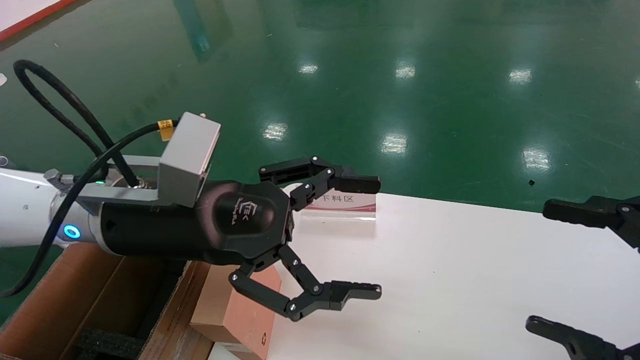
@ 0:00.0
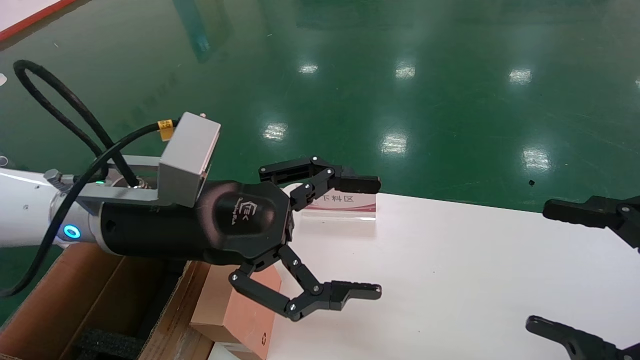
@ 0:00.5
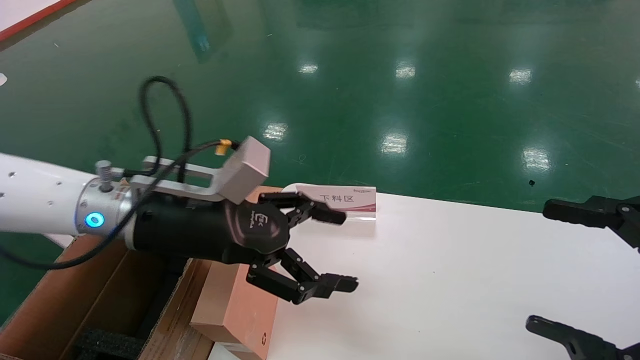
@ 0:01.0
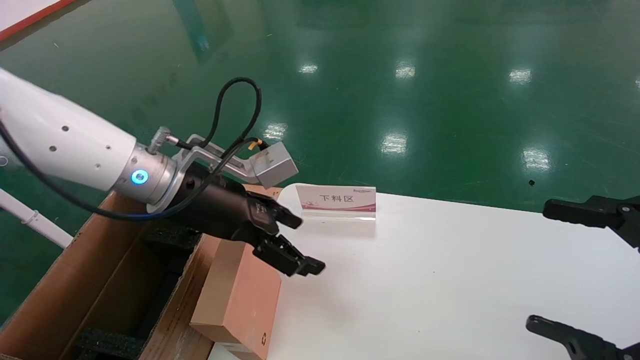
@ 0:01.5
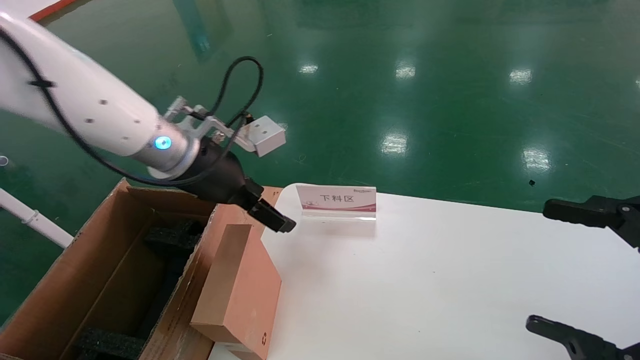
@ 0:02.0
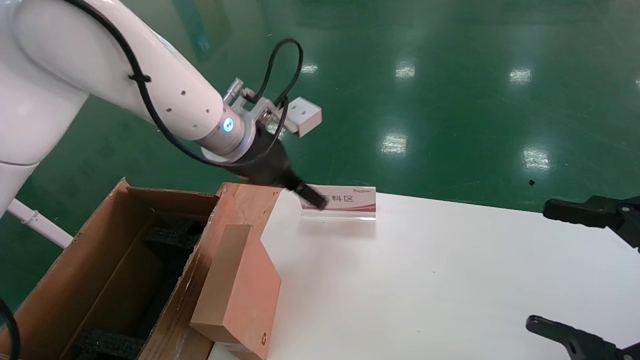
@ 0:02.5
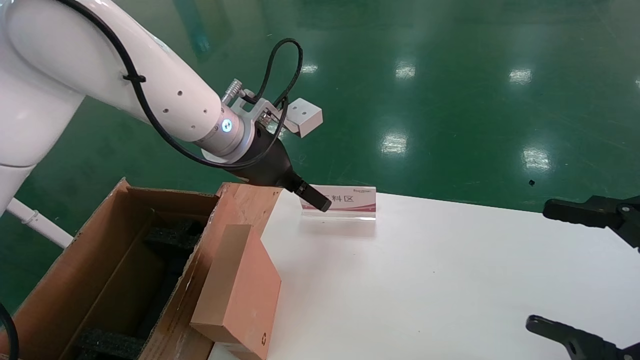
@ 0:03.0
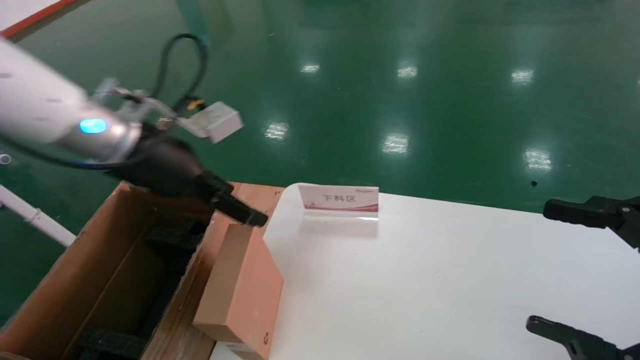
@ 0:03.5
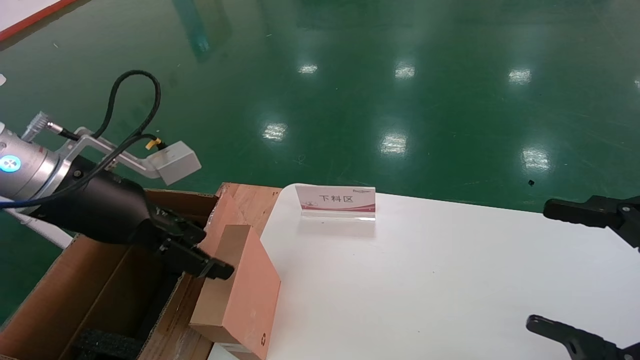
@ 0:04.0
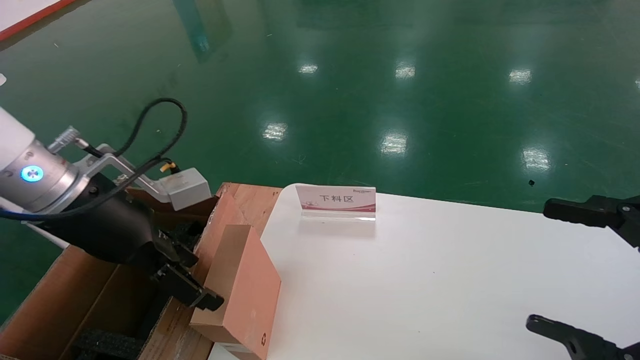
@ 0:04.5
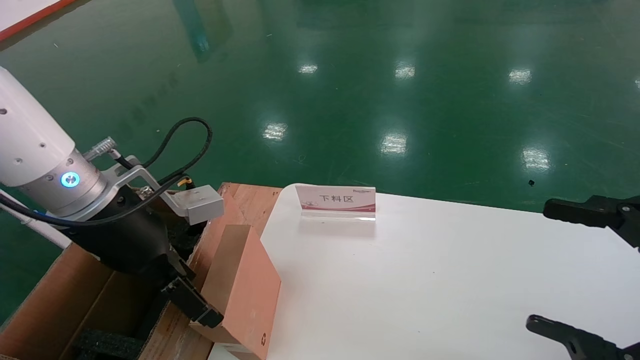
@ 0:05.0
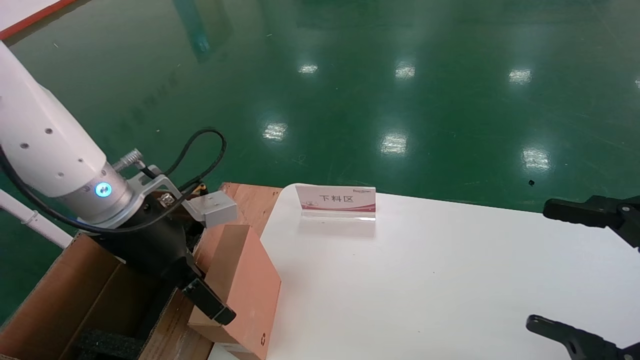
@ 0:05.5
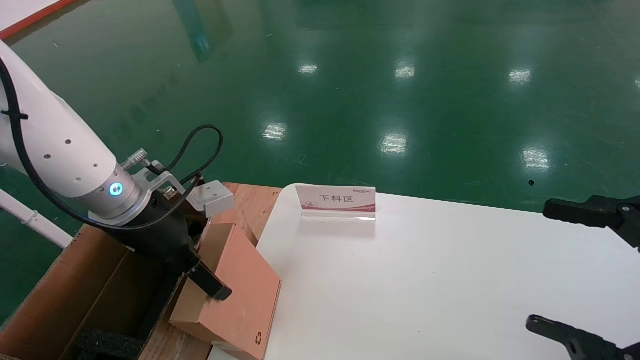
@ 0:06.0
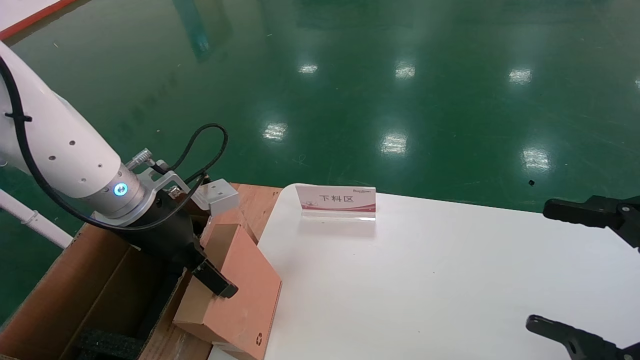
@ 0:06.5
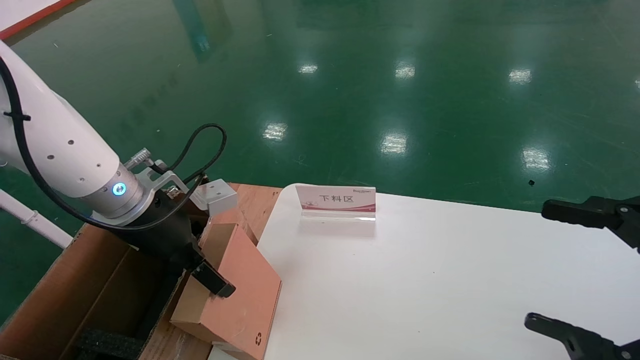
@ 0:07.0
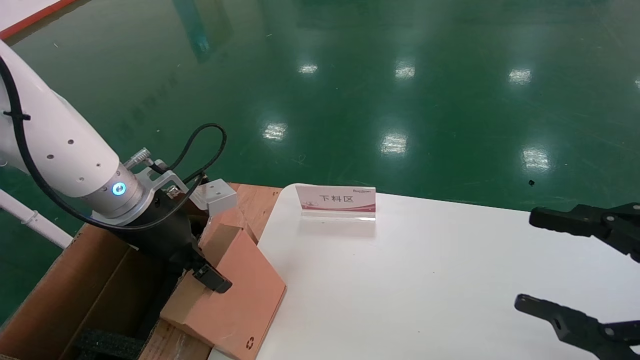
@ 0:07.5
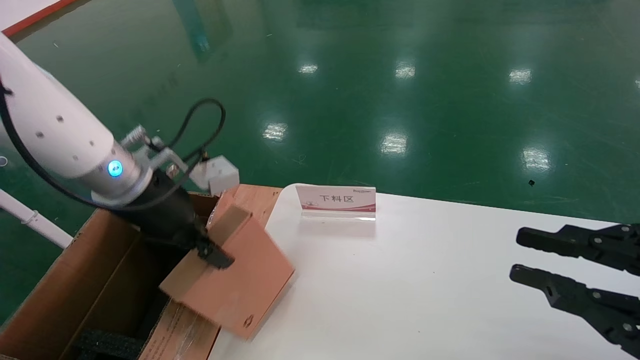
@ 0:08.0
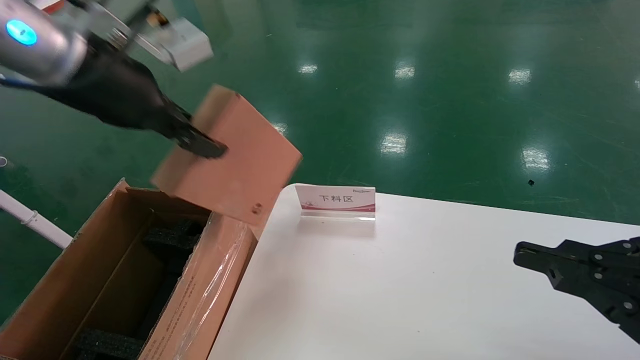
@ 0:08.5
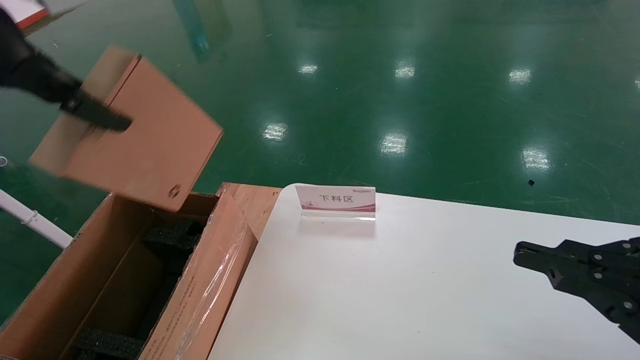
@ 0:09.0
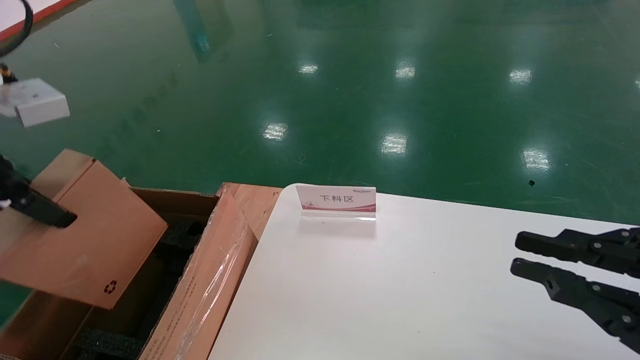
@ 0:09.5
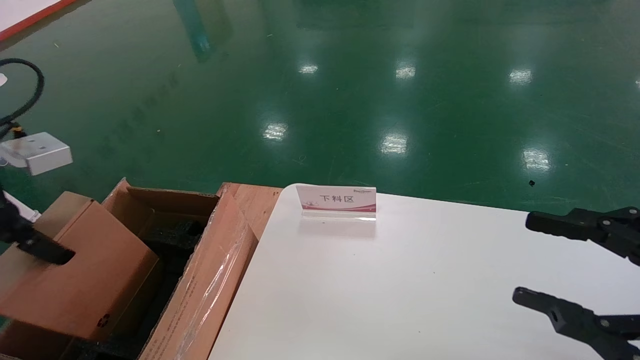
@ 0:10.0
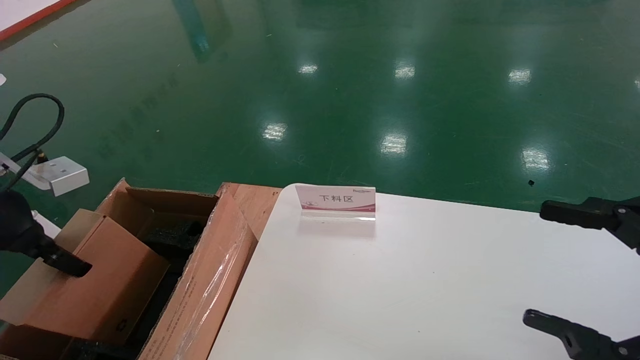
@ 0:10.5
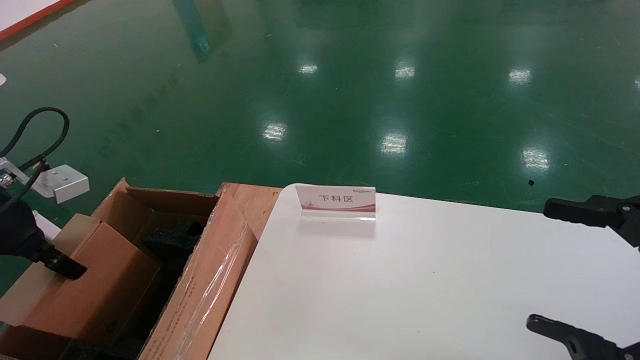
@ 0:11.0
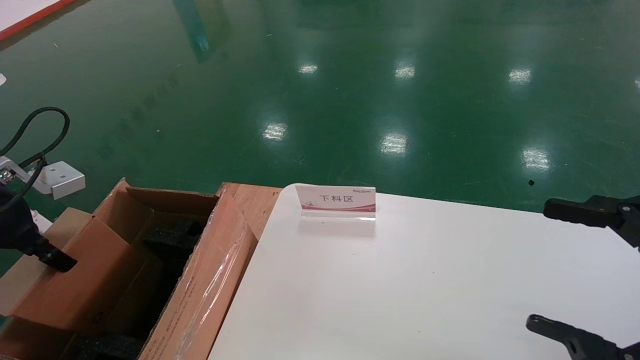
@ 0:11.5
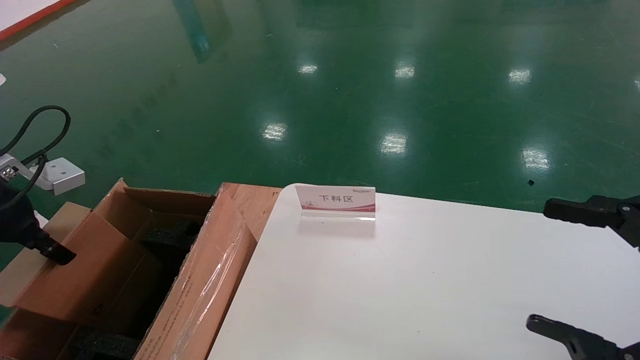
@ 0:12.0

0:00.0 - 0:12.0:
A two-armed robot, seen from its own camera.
Task of the whole recording: pick up the small cardboard box and load it into the large cardboard box.
Step, 0:01.5 - 0:08.0: Pick up the mouse and power cord box.
0:00.0 - 0:02.0: The left gripper goes approximately 10 cm forward.
0:02.0 - 0:04.0: The left gripper is displaced backward and to the left by roughly 15 cm.
0:04.0 - 0:06.0: The left gripper heads forward, covering about 5 cm.
0:06.0 - 0:08.0: The left gripper closes, while the right gripper closes its fingers.
0:08.0 - 0:10.0: The left gripper is displaced to the left and backward by about 15 cm, and travels upward and back again, some 15 cm each way.
0:10.0 - 0:12.0: The right gripper opens. The left gripper moves downward and to the left, approximately 10 cm.

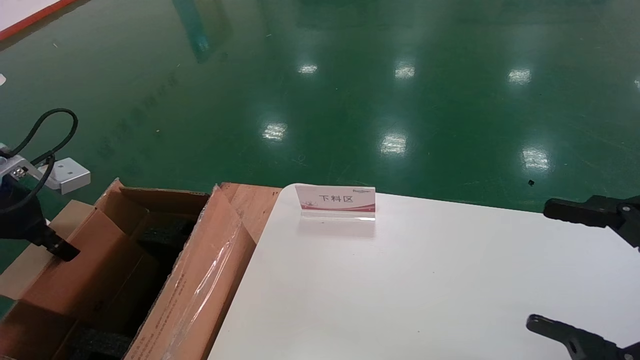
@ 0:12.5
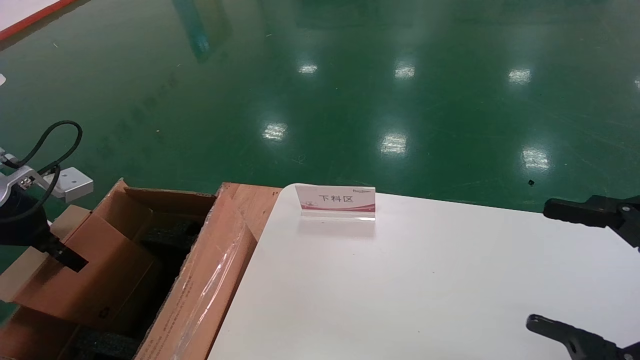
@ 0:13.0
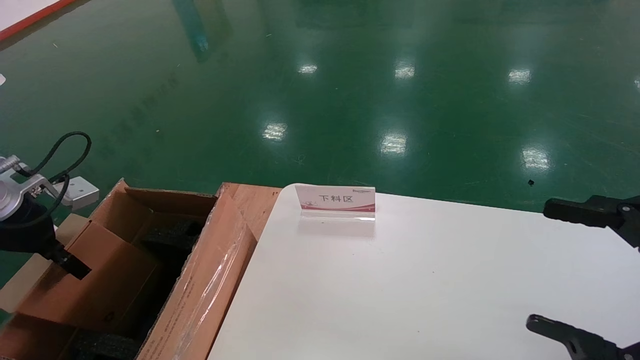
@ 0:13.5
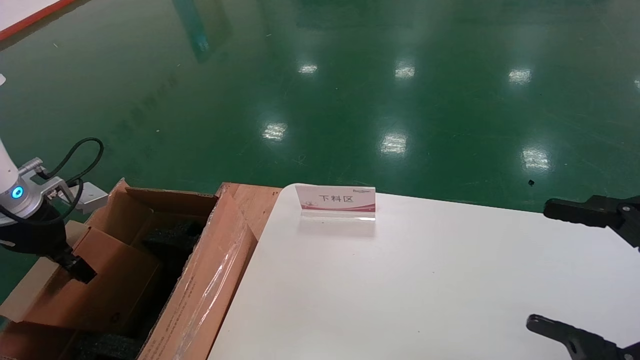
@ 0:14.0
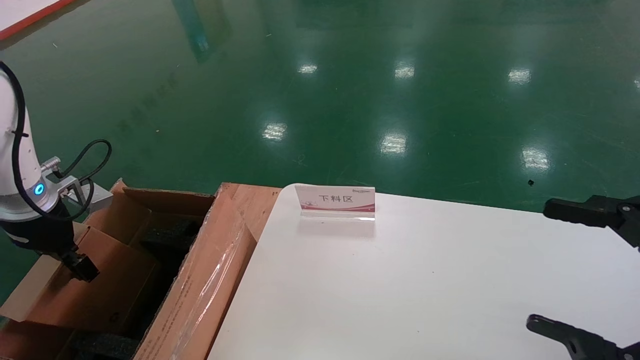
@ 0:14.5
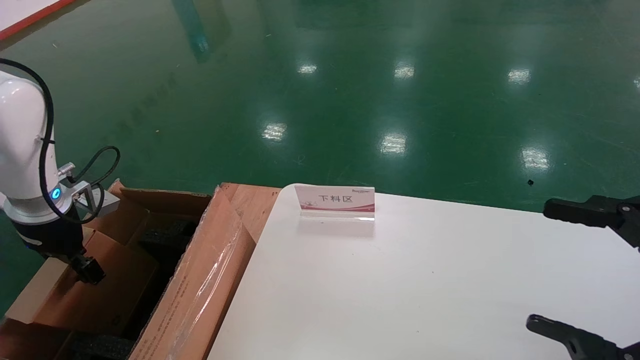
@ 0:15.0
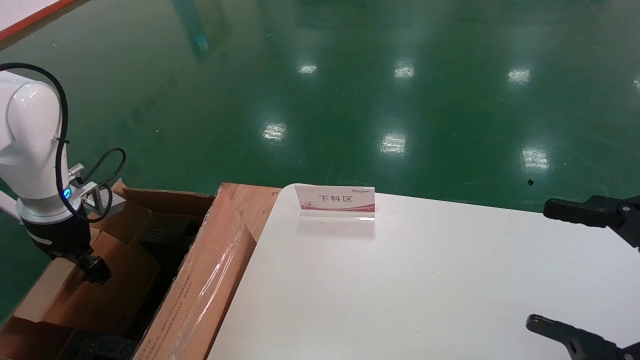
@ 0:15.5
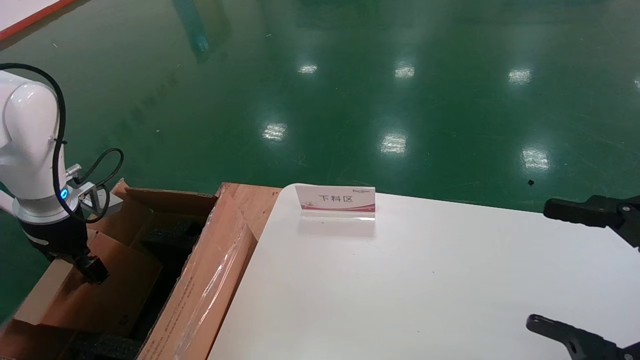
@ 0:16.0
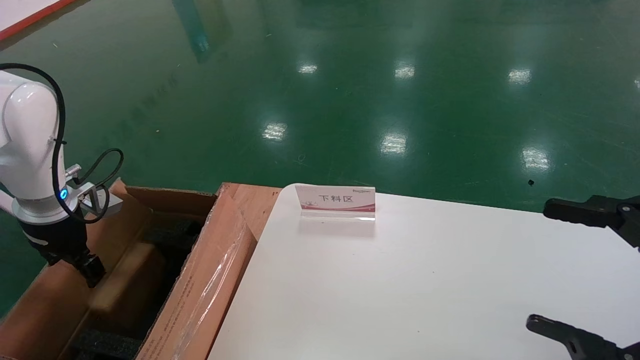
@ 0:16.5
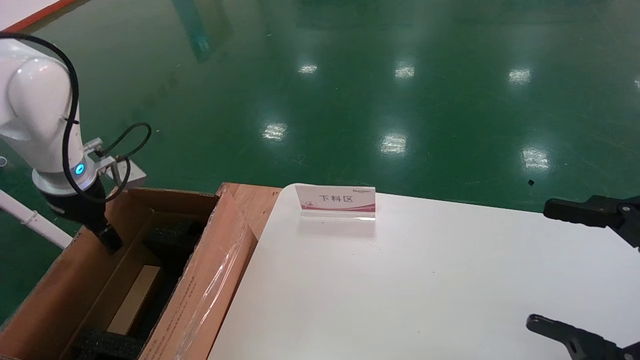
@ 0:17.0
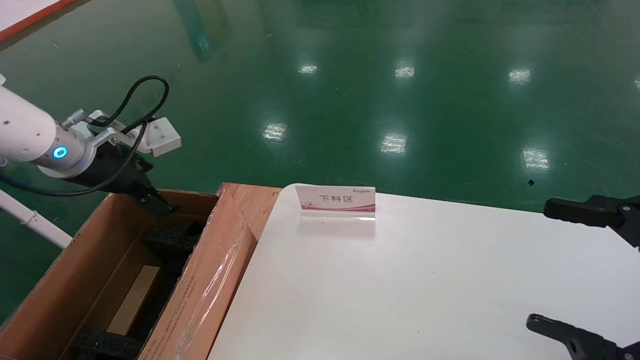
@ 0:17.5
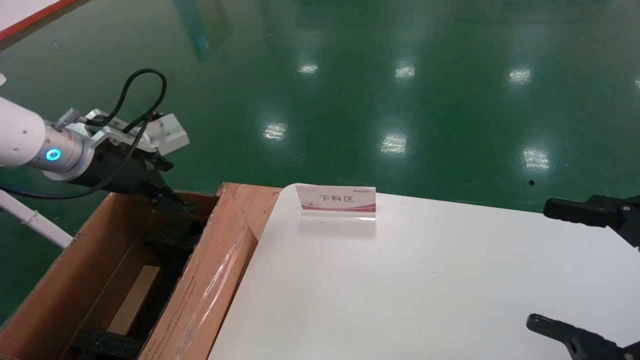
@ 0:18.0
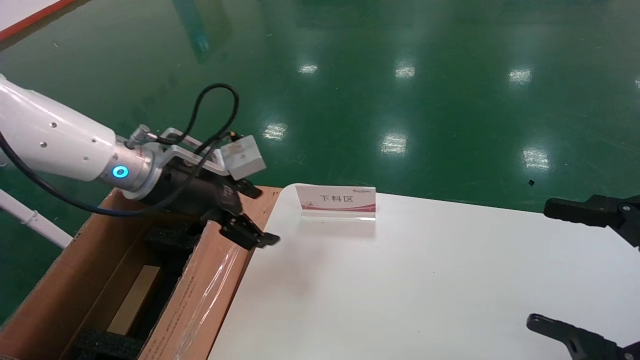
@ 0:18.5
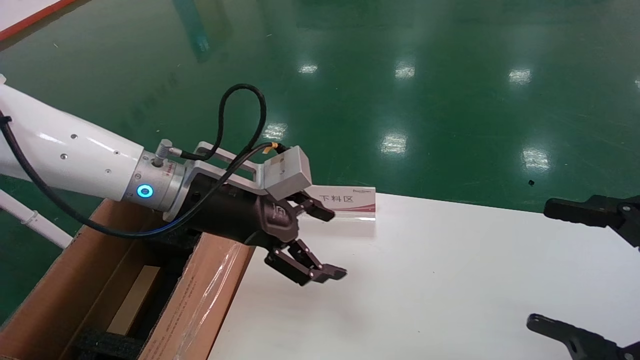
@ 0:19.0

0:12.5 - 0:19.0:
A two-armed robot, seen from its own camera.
Task of the whole recording: pick up the small cardboard box and load it into the large cardboard box.
Step, 0:12.5 - 0:16.0: Place the mouse and power cord box into the case.
0:12.5 - 0:14.5: The left gripper moves forward, about 5 cm.
0:14.5 - 0:17.0: The left gripper moves about 5 cm, and opens up.
0:17.0 - 0:19.0: The left gripper travels to the right by about 25 cm.
